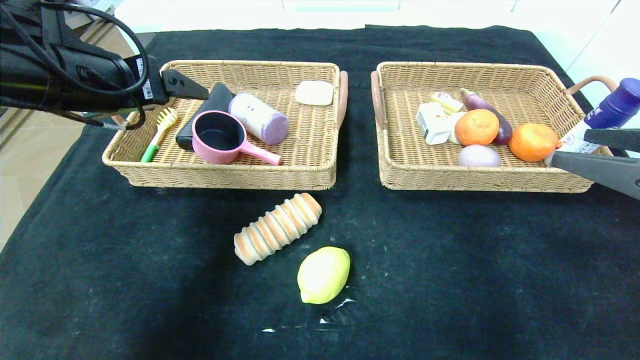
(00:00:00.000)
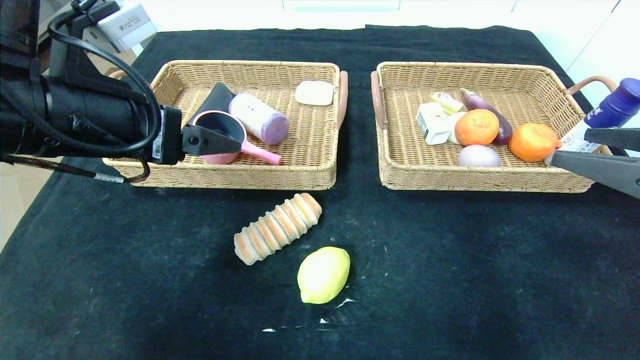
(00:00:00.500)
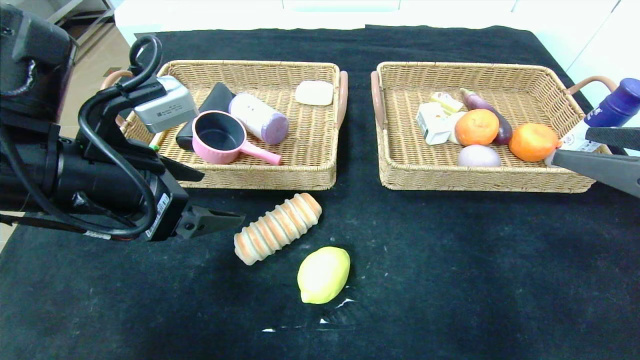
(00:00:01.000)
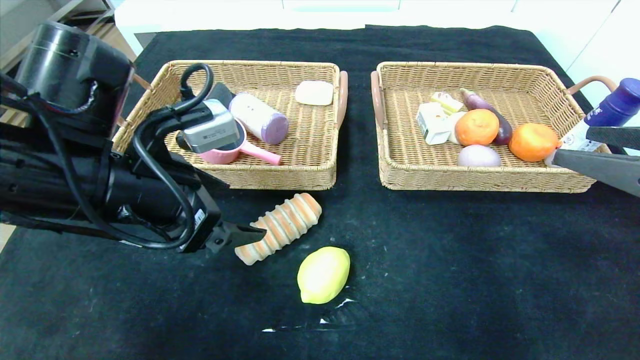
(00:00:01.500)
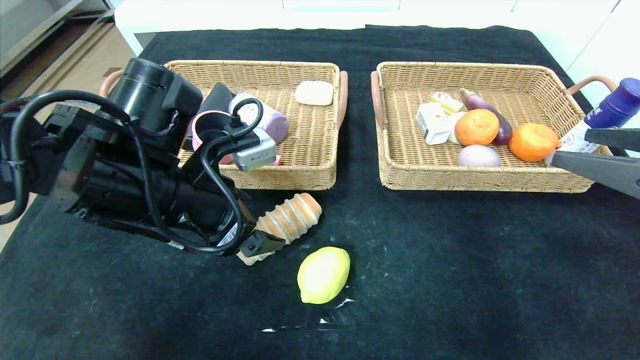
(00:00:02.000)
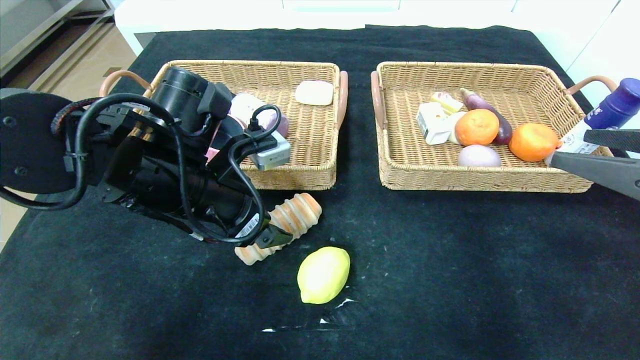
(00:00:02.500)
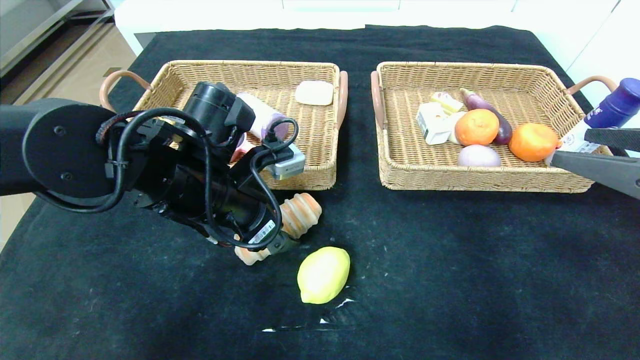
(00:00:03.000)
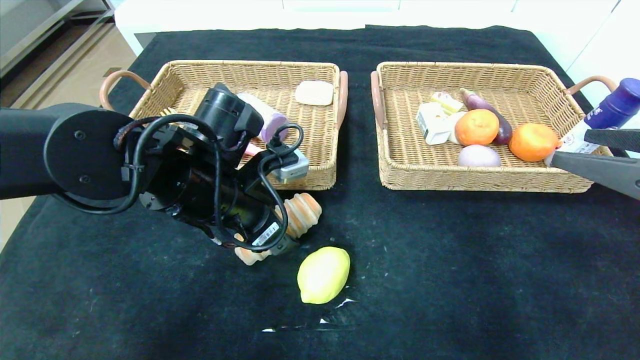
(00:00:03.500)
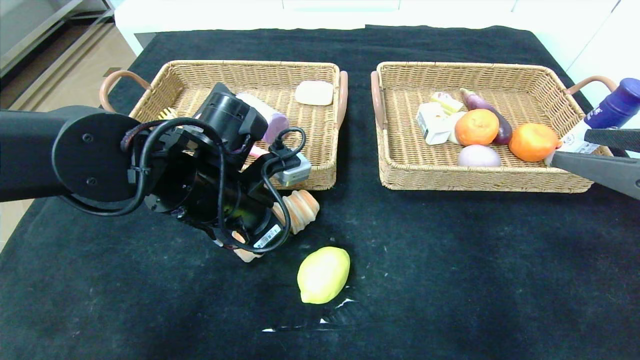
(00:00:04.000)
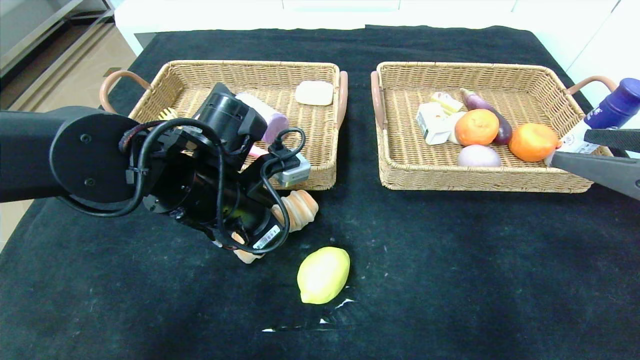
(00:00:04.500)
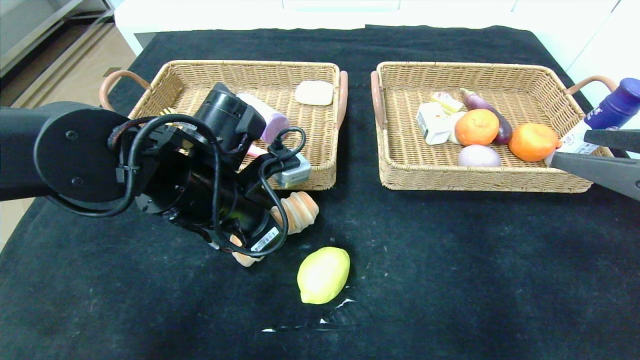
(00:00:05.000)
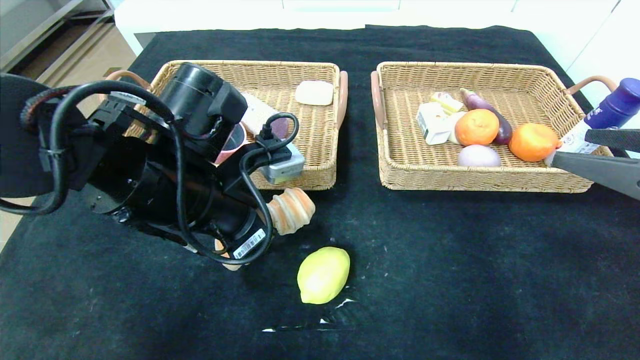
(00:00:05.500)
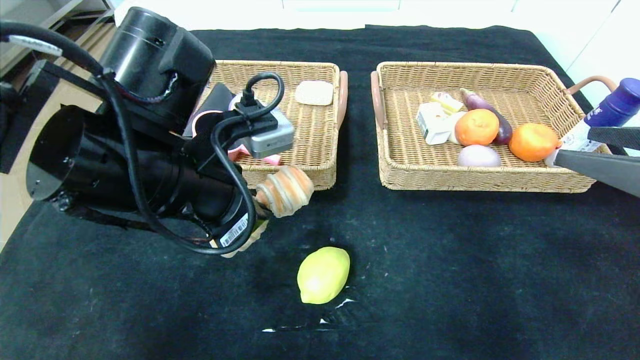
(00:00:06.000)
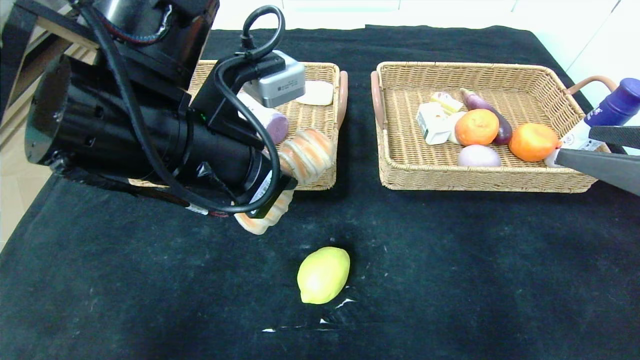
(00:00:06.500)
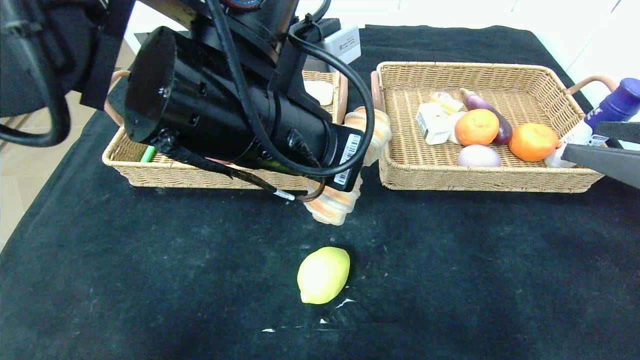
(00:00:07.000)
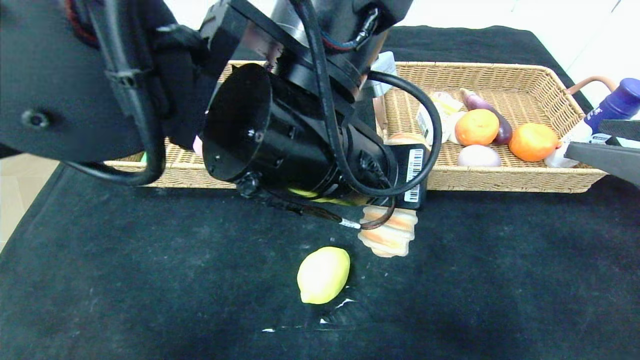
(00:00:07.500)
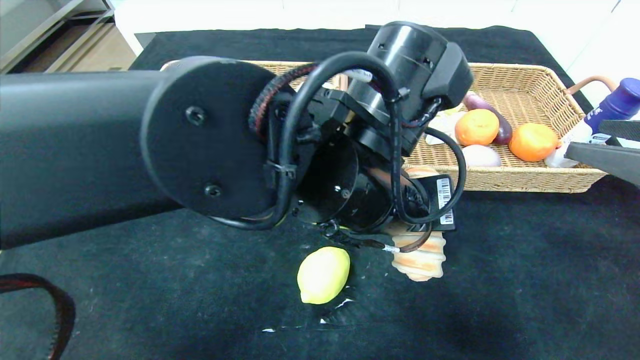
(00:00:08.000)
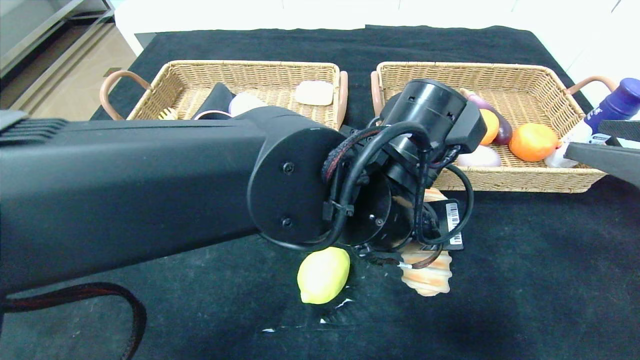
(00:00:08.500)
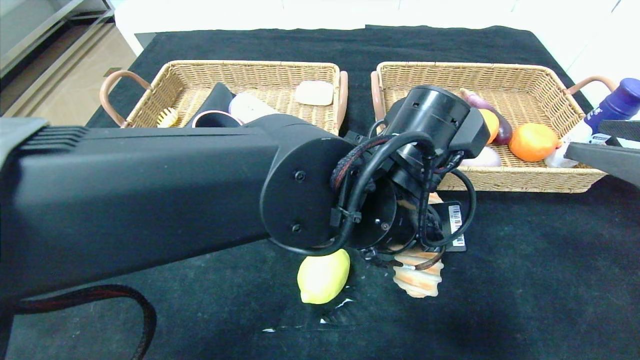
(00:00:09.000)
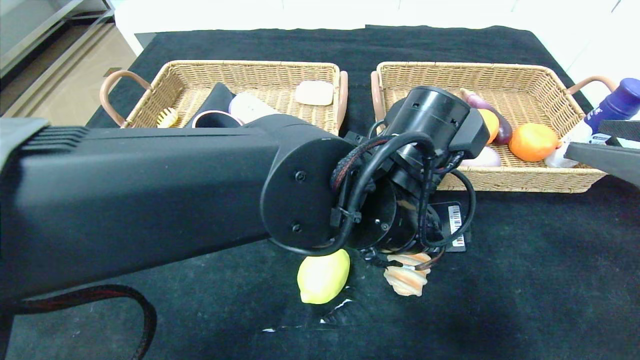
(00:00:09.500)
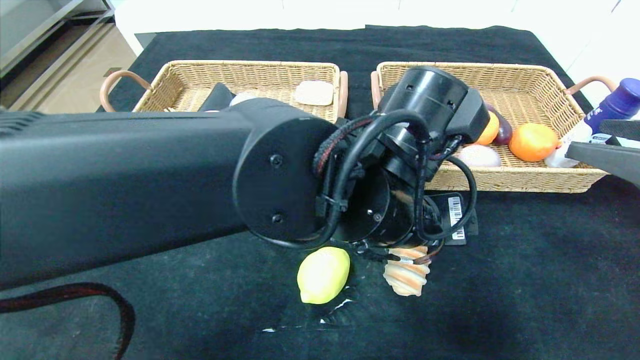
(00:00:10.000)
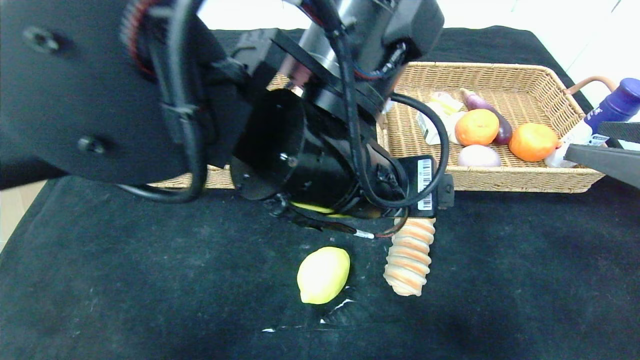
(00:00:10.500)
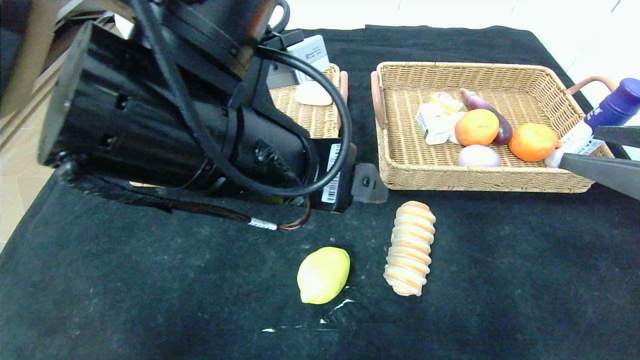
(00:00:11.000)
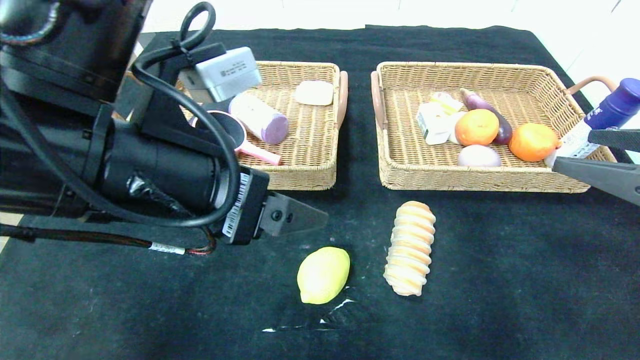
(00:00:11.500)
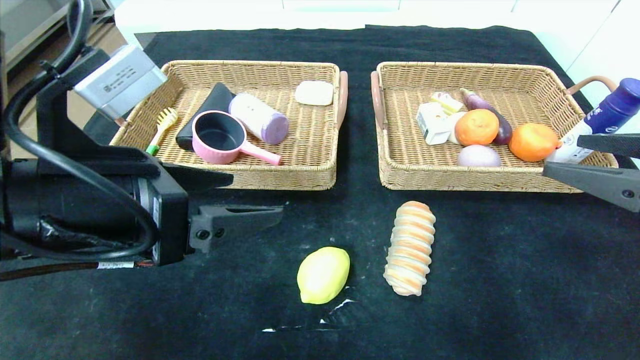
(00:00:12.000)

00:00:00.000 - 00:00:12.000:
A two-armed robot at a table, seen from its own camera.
Step, 00:00:00.000 - 00:00:09.000: Place the long bread in the center of the table.
00:00:00.000 - 00:00:02.000: The left gripper goes approximately 15 cm downward and to the right.
00:00:02.000 - 00:00:04.000: The left gripper ends up roughly 5 cm from where it was, and closes its fingers.
00:00:04.000 - 00:00:06.000: The left gripper goes roughly 10 cm backward and upward, and closes.
00:00:06.000 - 00:00:08.000: The left gripper shifts about 15 cm to the right.
00:00:08.000 - 00:00:10.000: The left gripper opens.
00:00:10.000 - 00:00:12.000: The left gripper heads to the left, covering approximately 25 cm.

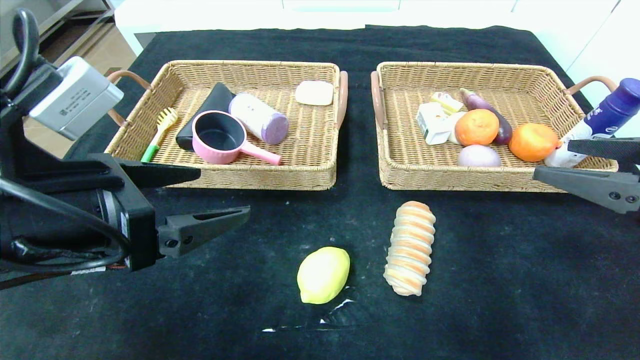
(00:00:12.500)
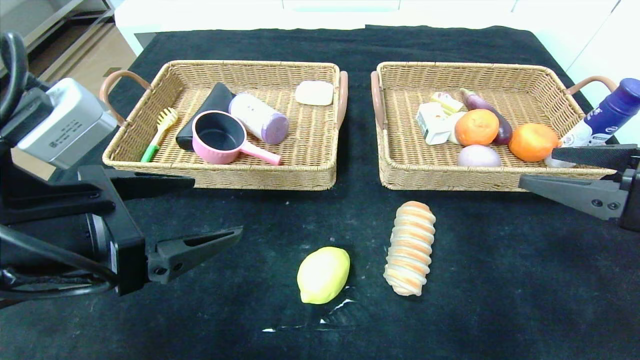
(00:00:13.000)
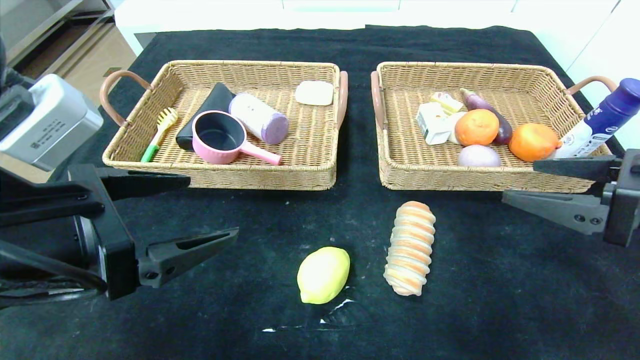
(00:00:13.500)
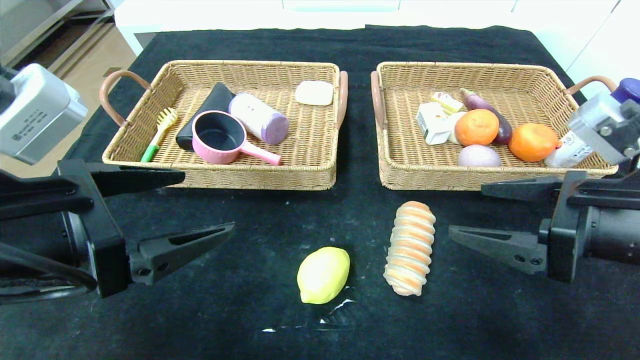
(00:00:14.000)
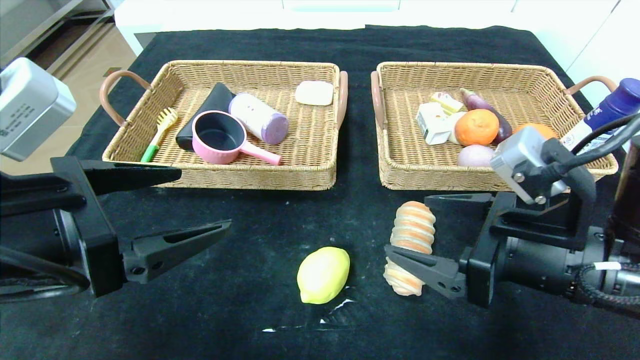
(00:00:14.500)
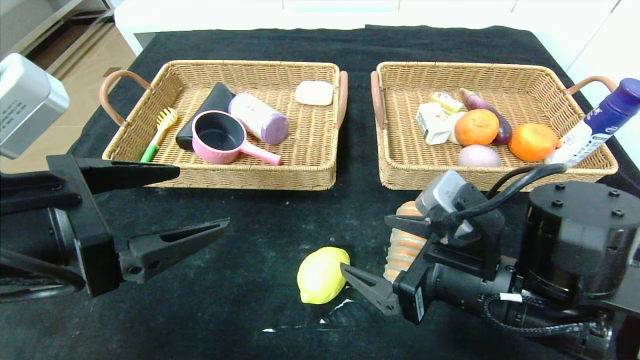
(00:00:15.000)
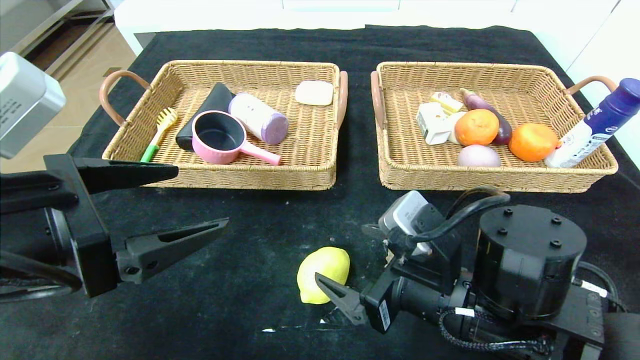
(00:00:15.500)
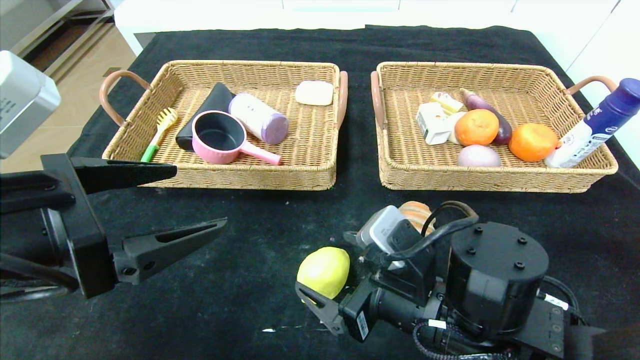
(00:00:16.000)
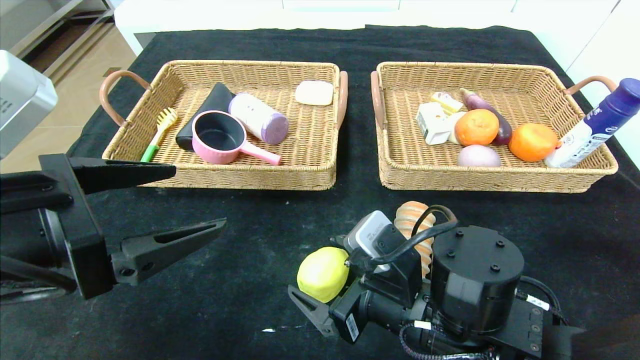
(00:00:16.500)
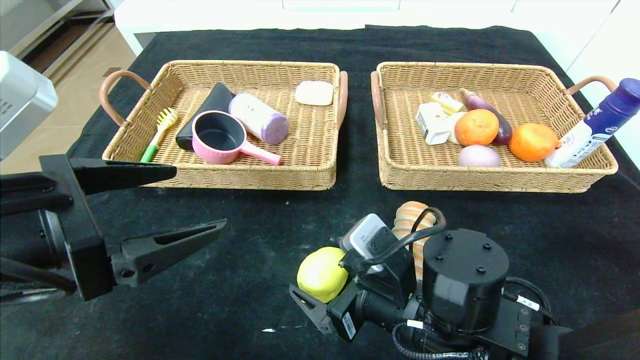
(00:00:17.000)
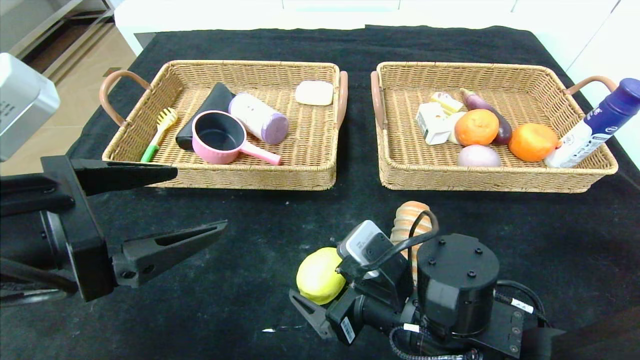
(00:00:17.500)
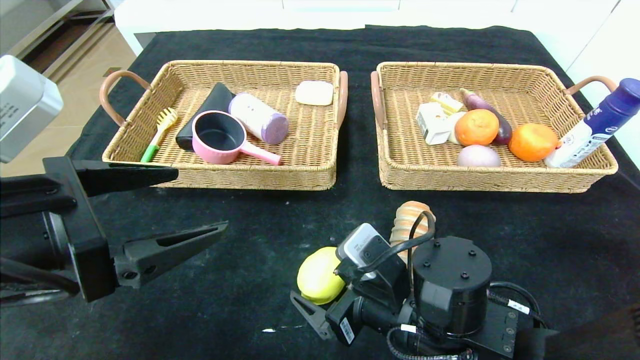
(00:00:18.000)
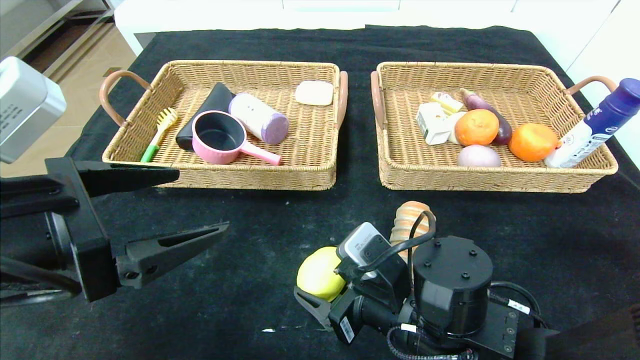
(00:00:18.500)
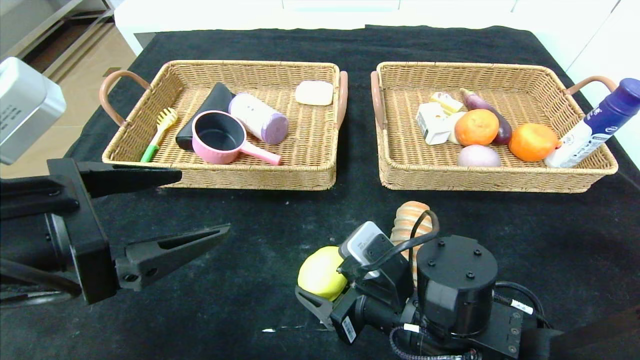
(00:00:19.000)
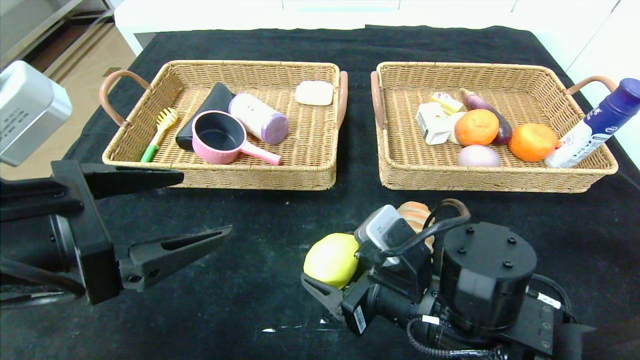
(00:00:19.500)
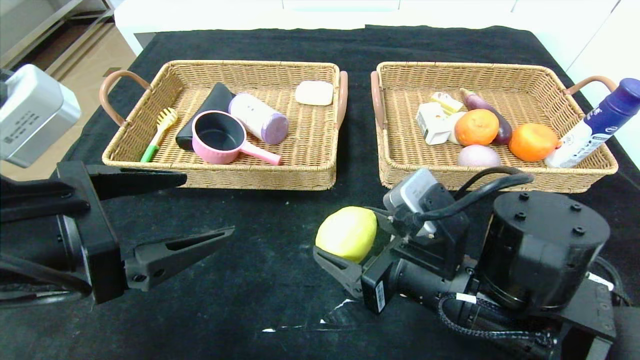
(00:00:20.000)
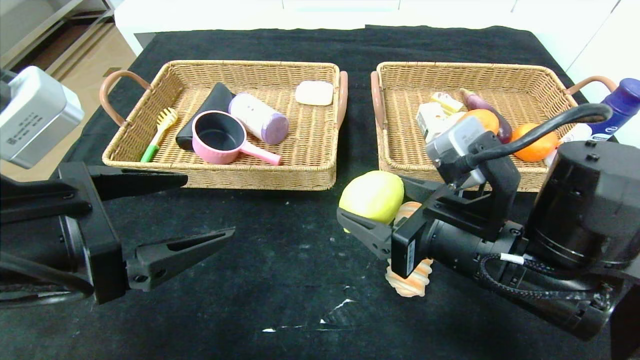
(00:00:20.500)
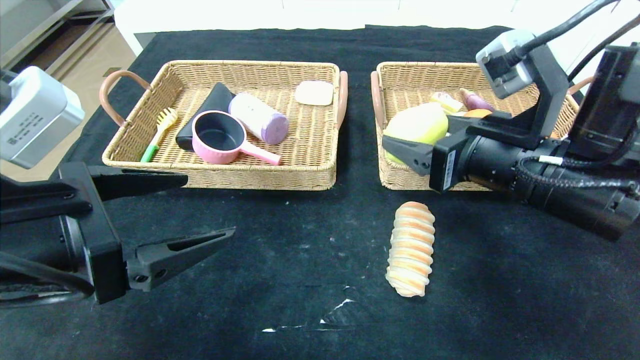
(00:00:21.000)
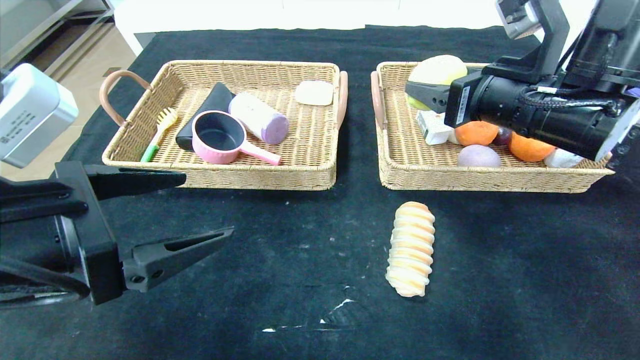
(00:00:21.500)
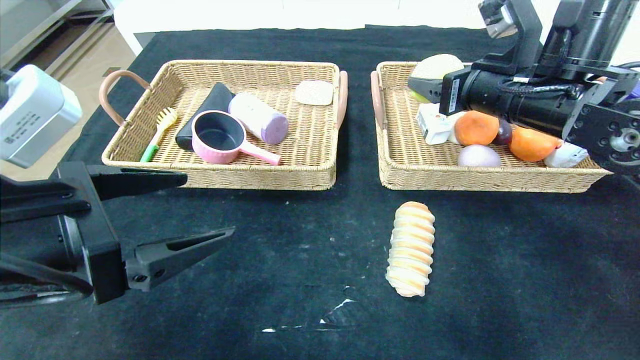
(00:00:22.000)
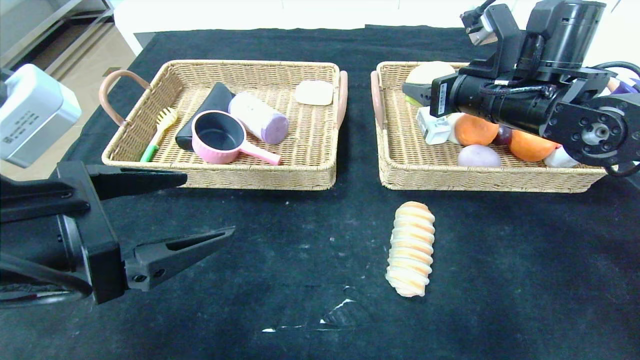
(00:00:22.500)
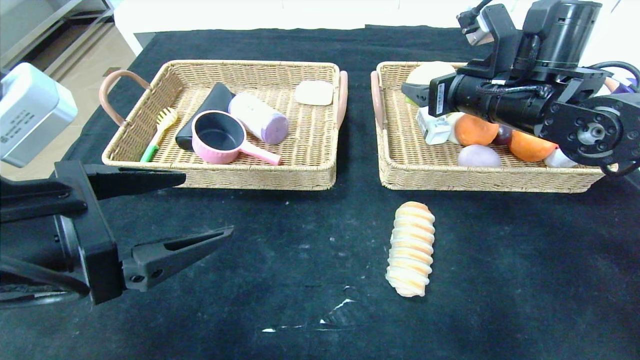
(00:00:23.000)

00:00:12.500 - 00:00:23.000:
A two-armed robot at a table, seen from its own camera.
00:00:12.500 - 00:00:14.500: The right gripper heads to the left and downward, covering approximately 15 cm.
00:00:14.500 - 00:00:16.500: The right gripper travels to the left and downward by about 15 cm.
00:00:16.500 - 00:00:19.000: The grippers move only a little.
00:00:19.000 - 00:00:21.000: The right gripper heads upward and to the right, covering about 15 cm.
00:00:21.000 - 00:00:23.000: The right gripper moves forward, some 15 cm.
